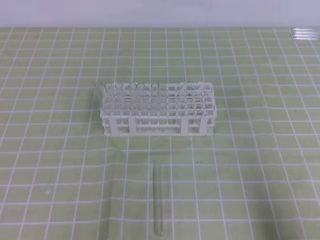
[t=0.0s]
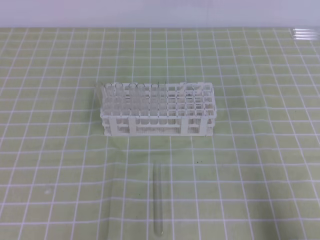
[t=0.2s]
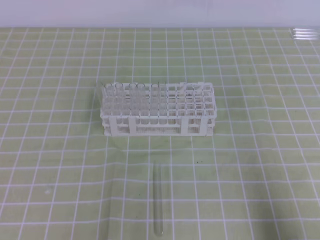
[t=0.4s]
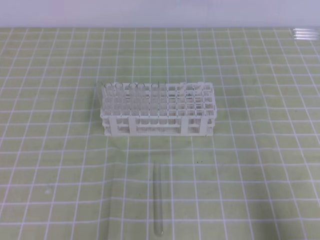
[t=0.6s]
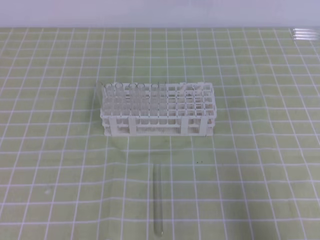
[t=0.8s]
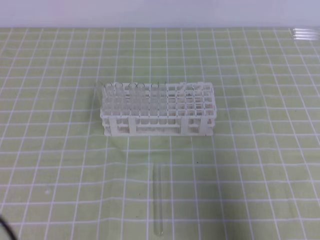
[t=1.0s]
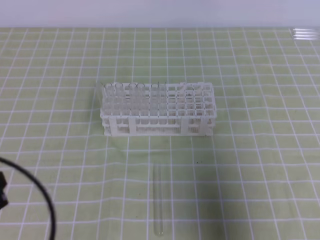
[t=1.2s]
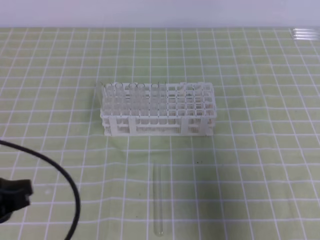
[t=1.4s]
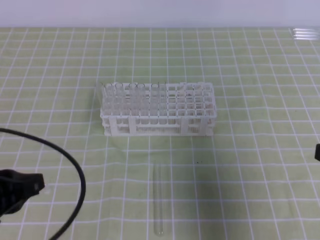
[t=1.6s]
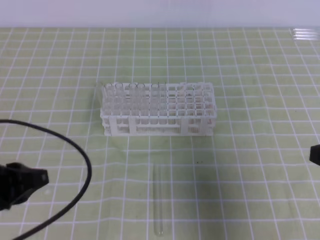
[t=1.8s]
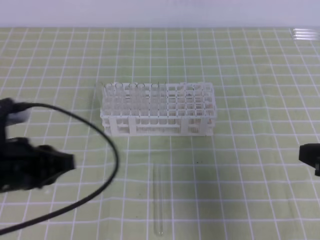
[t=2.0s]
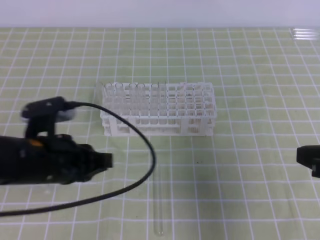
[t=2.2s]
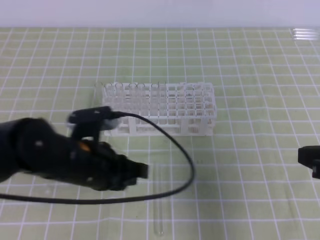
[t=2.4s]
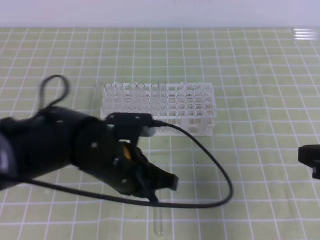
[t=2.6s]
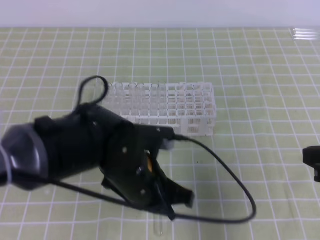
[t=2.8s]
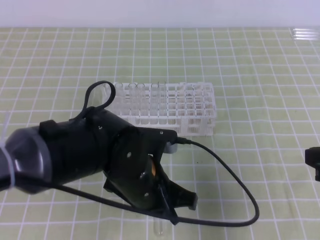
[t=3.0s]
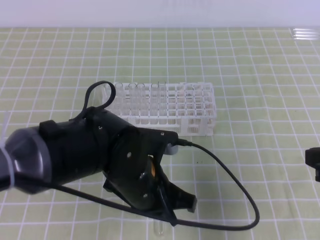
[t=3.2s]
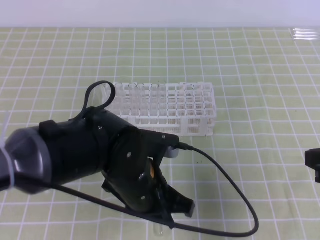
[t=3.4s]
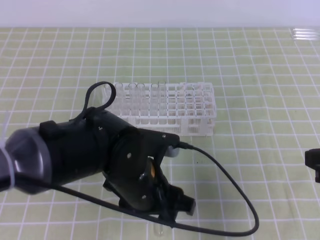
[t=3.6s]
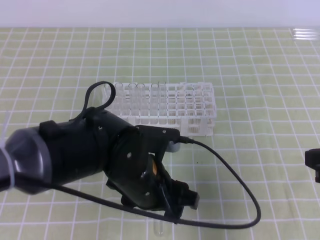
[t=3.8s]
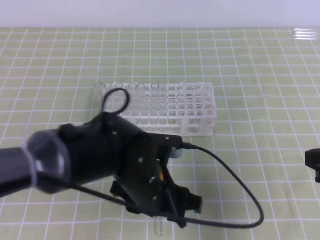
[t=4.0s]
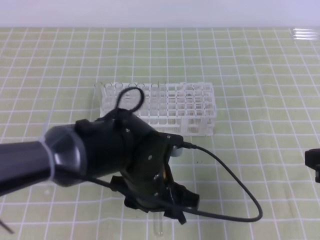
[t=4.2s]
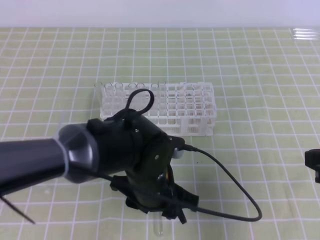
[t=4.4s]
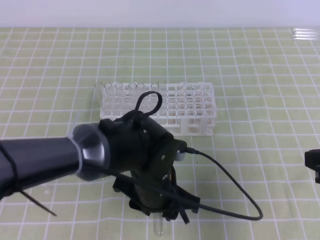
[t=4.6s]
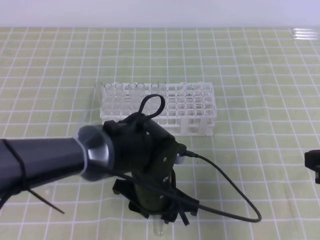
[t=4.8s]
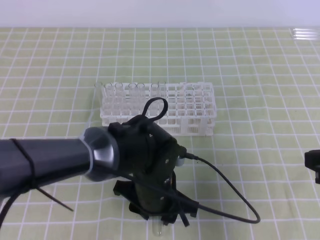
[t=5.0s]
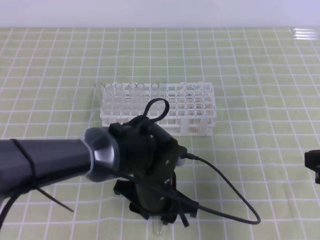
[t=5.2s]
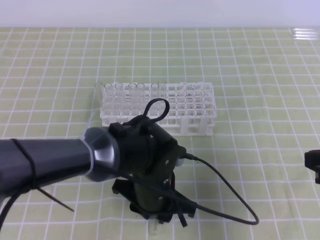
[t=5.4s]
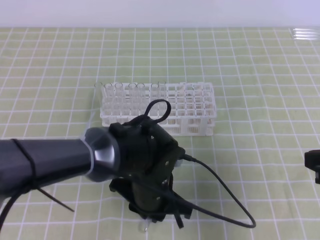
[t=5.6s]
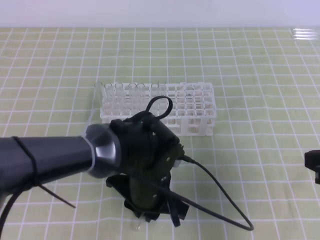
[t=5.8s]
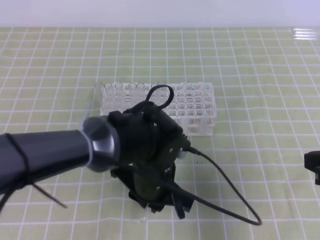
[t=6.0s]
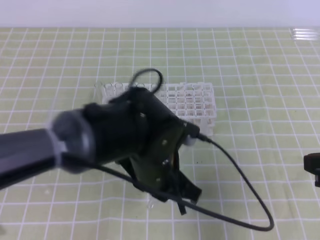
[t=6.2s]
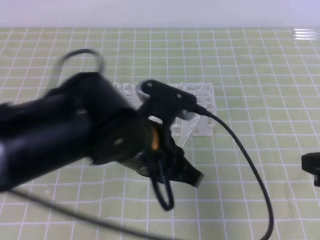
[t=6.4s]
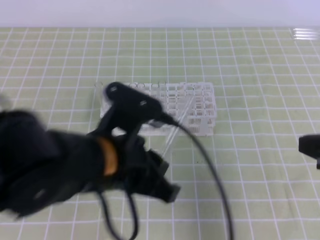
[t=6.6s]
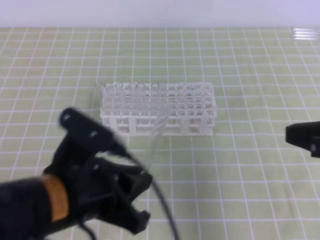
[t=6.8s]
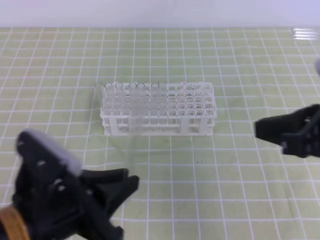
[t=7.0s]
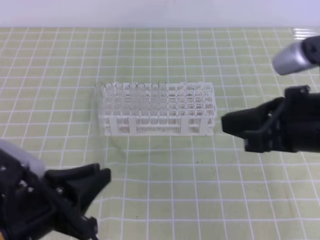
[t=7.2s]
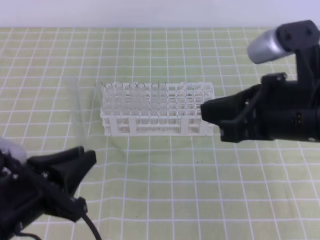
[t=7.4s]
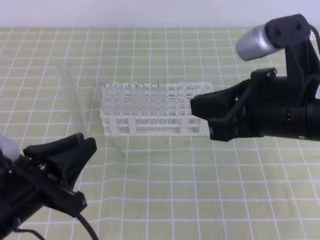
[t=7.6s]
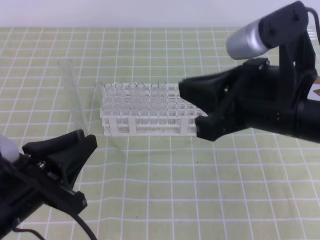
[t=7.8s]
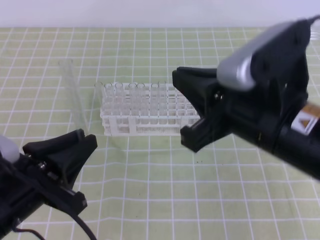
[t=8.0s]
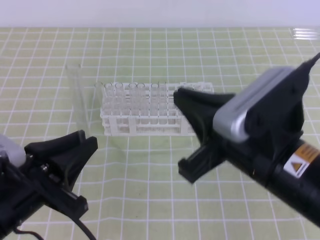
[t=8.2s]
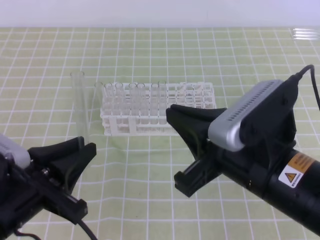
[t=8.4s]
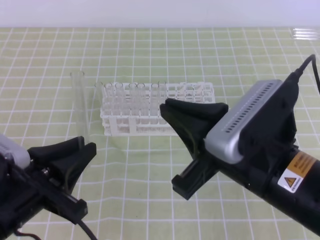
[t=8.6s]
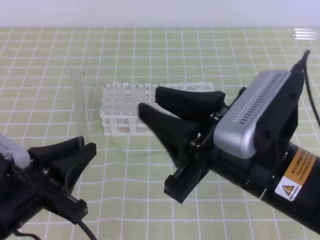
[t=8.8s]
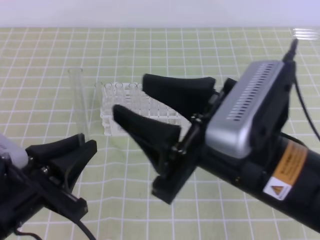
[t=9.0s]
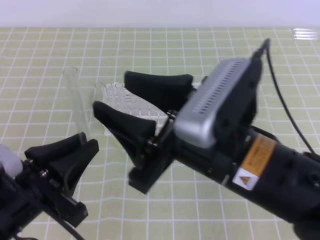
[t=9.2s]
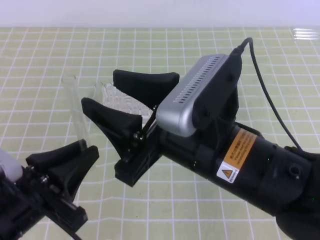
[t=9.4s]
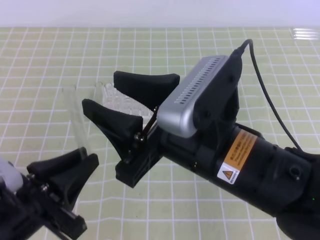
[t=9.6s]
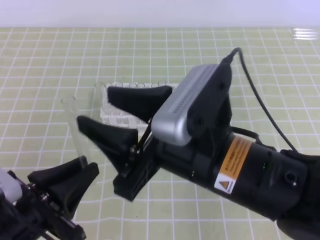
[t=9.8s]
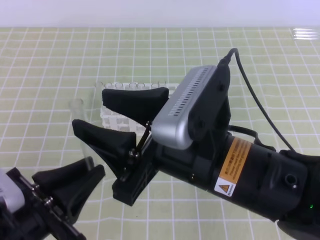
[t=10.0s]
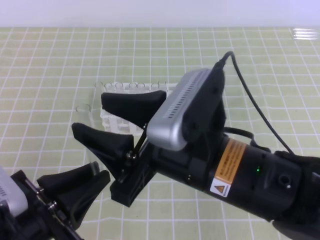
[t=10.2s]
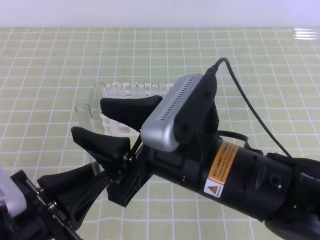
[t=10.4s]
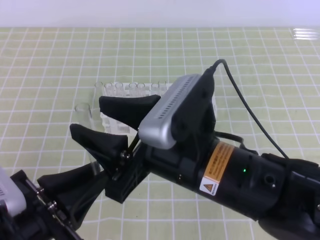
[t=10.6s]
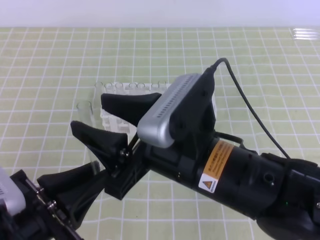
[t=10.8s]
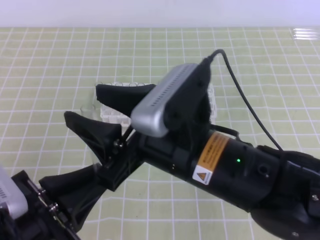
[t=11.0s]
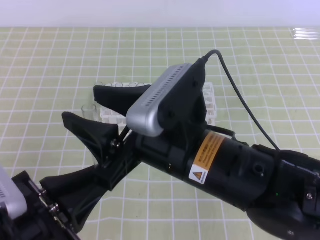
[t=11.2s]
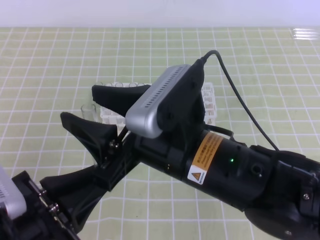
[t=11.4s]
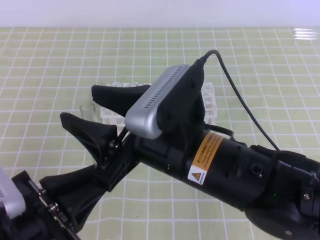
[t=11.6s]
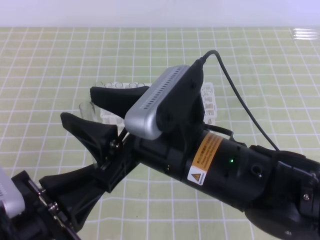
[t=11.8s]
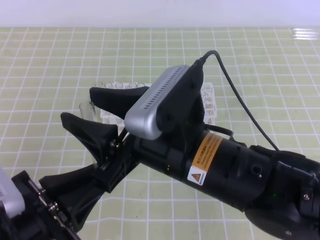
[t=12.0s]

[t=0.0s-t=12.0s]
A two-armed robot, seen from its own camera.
t=0.0s to t=1.6s: The left gripper is displaced forward and upward by some 10 cm. Meanwhile the right gripper travels upward and forward by some 15 cm.
t=1.6s to t=3.0s: The left gripper goes about 20 cm to the right.
t=3.0s to t=4.4s: The left gripper opens up.
t=4.4s to t=6.0s: The left gripper closes up.
t=6.0s to t=7.6s: The left gripper is displaced to the left, backward and upward by approximately 20 cm. The right gripper heads to the left and upward, covering some 15 cm.
t=7.6s to t=9.0s: The right gripper goes some 5 cm to the left, and opens up.
t=10.4s to t=12.0s: There are only small adjustments of the grippers.

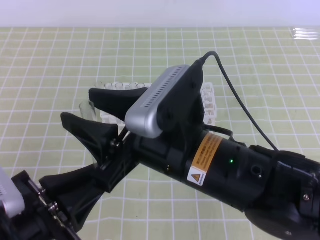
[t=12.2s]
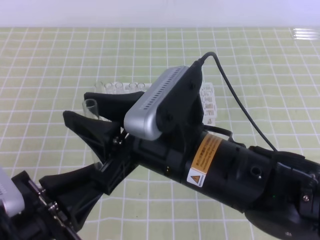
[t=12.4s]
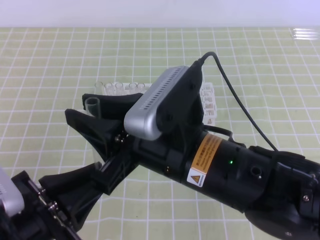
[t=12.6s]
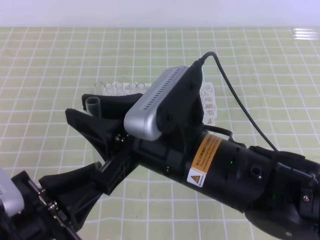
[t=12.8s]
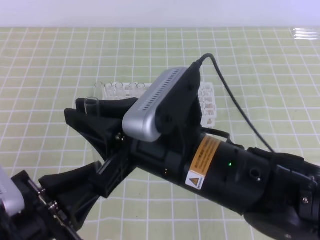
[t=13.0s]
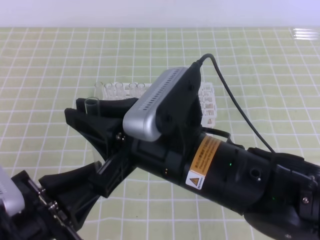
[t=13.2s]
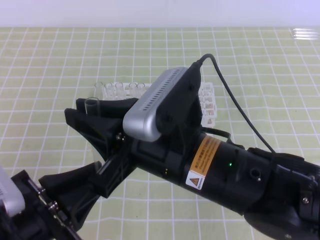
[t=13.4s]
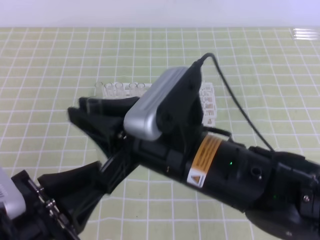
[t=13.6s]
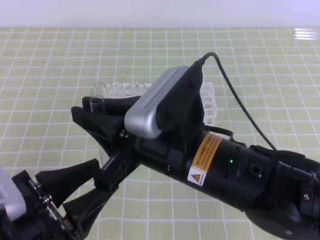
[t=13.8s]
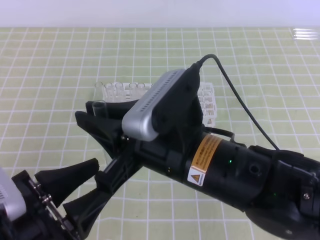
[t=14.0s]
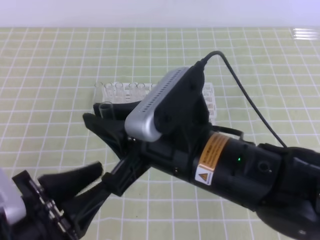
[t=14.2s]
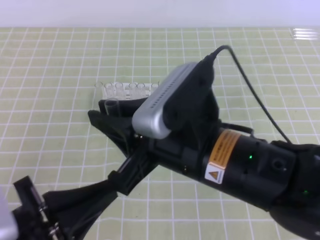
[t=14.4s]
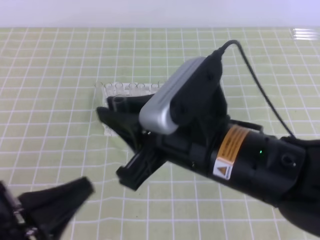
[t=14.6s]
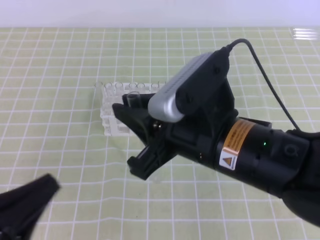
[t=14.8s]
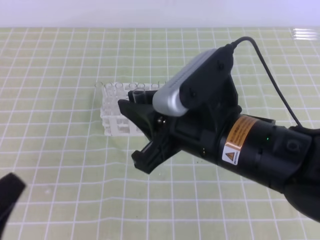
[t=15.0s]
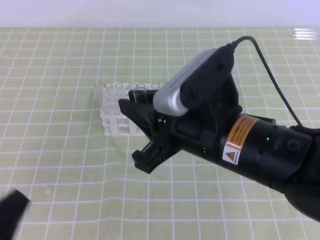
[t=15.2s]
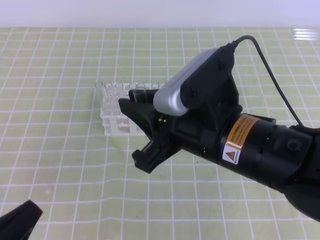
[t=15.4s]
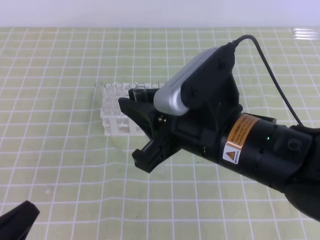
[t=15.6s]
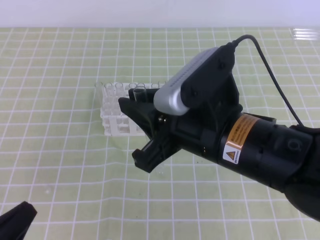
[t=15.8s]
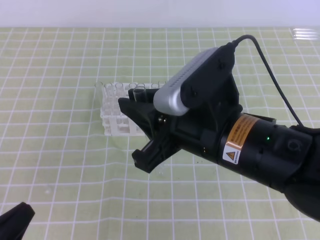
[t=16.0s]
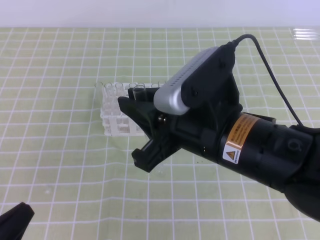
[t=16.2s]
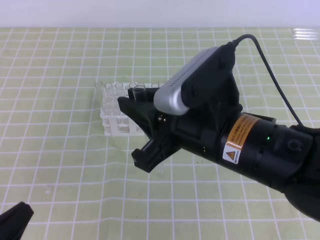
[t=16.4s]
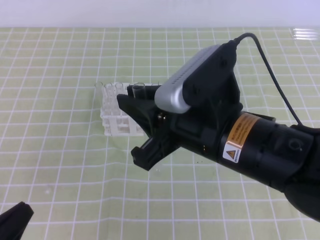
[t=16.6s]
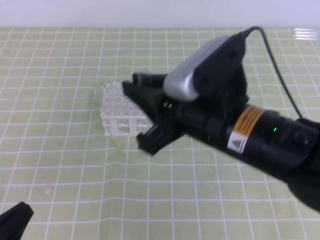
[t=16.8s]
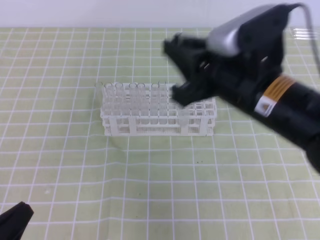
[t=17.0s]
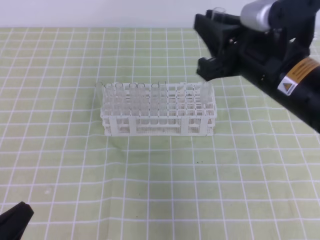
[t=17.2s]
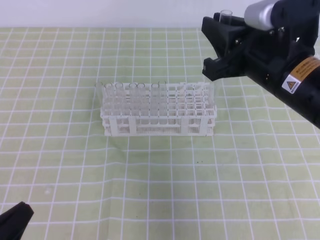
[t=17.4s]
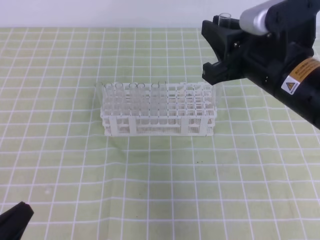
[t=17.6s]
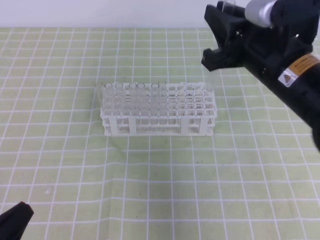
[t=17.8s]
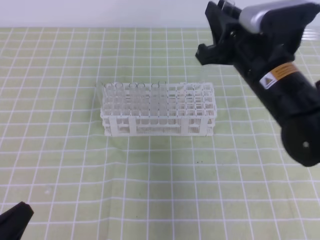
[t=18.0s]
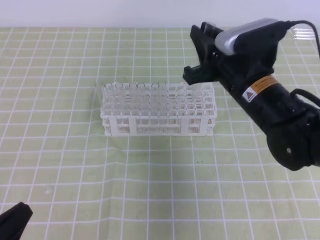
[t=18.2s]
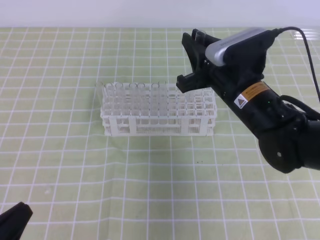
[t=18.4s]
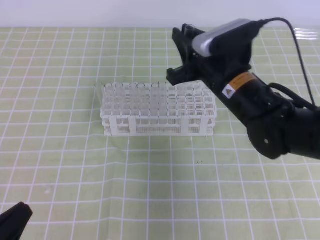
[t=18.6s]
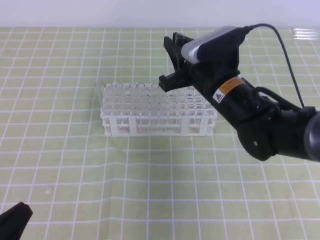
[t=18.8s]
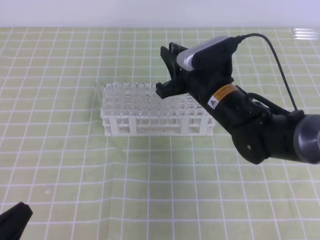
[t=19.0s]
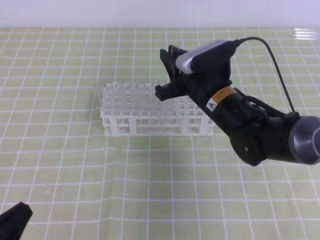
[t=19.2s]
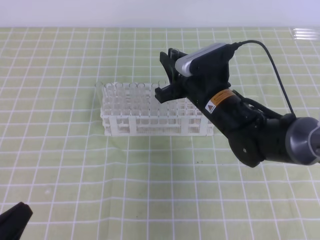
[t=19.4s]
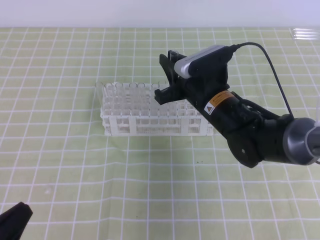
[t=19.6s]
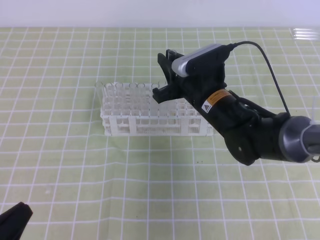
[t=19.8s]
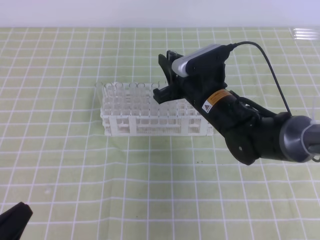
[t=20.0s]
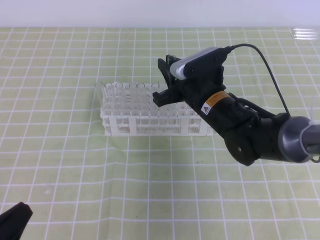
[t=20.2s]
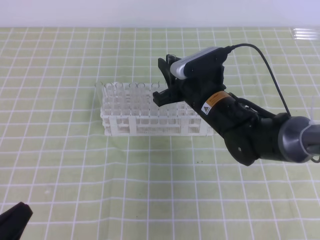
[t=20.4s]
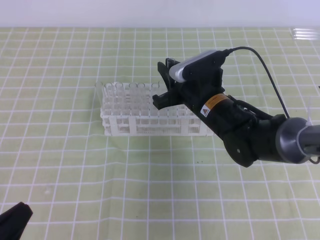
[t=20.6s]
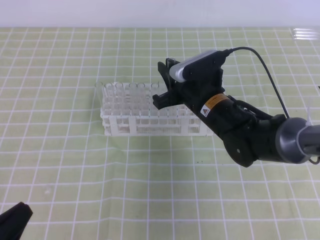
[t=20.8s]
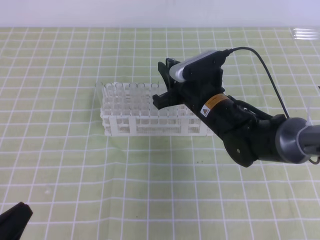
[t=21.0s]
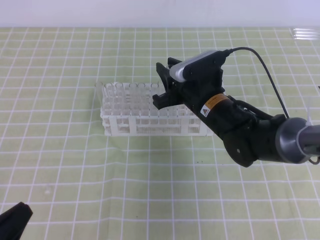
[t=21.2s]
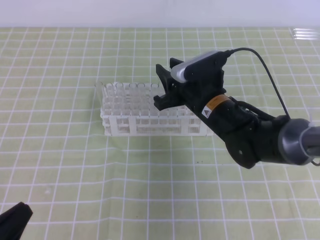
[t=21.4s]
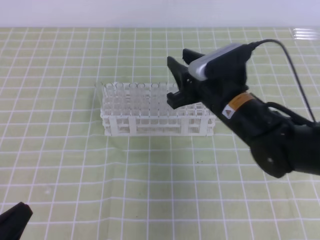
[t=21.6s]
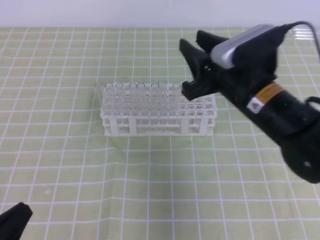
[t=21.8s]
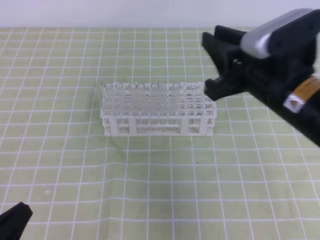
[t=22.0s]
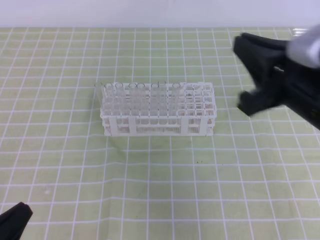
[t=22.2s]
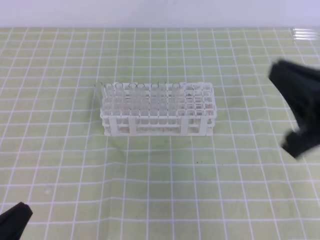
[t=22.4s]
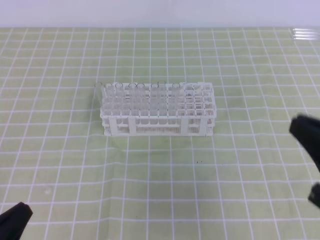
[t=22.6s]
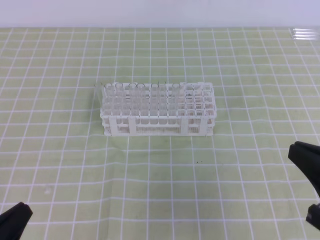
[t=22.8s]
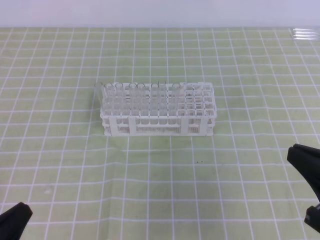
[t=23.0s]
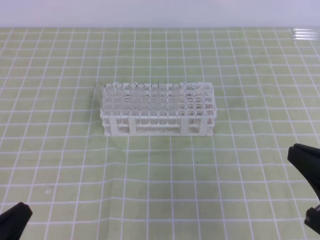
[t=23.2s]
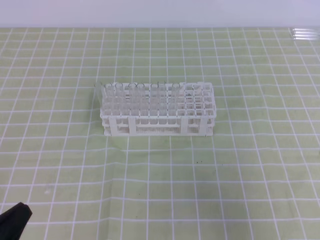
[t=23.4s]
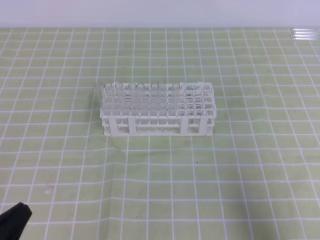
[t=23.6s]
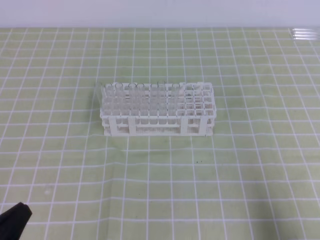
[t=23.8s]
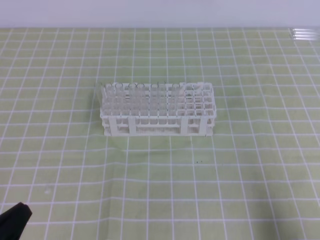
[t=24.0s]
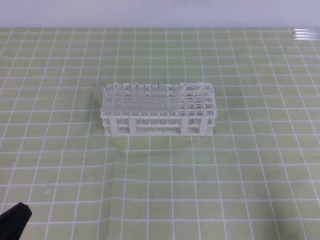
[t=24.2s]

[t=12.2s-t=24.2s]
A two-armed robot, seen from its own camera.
t=12.2s to t=13.8s: The right gripper closes up. Meanwhile the left gripper opens its fingers.
t=13.8s to t=15.2s: The left gripper is displaced to the left and backward by about 10 cm, and closes its fingers.
t=15.2s to t=16.6s: The grippers make only small movements.
t=16.6s to t=18.2s: The right gripper goes some 15 cm forward and to the right.
t=18.2s to t=19.8s: The right gripper travels downward by about 5 cm.
t=19.8s to t=21.2s: Neither gripper changes place.
t=21.2s to t=22.6s: The right gripper shifts some 30 cm backward, to the right and upward, and closes.
t=22.6s to t=24.2s: The right gripper goes roughly 15 cm downward, to the right and backward.
